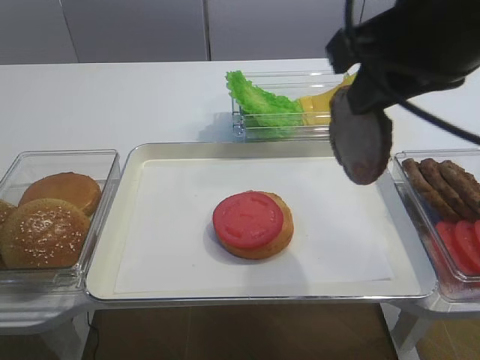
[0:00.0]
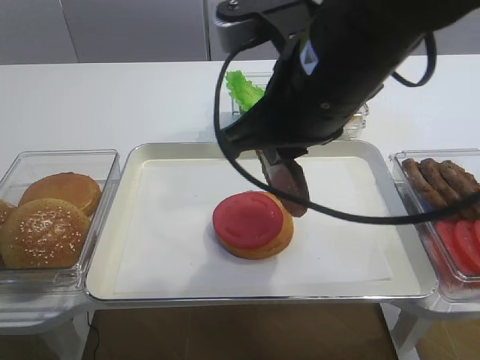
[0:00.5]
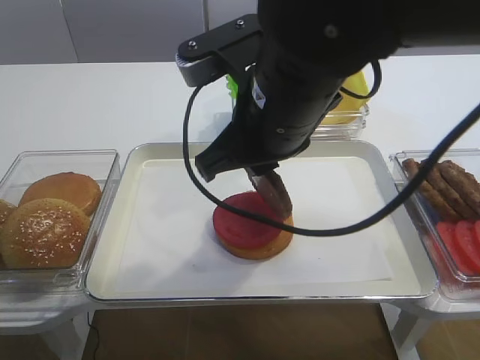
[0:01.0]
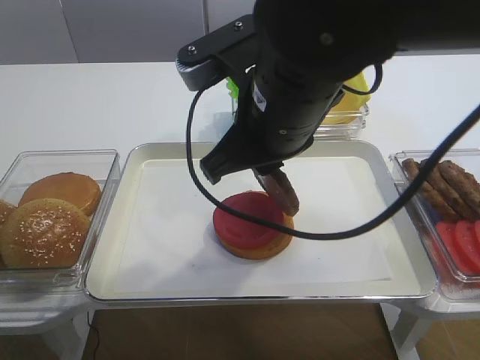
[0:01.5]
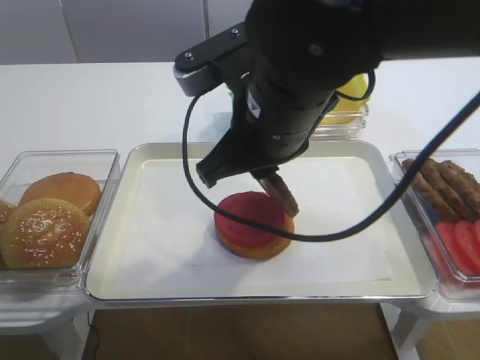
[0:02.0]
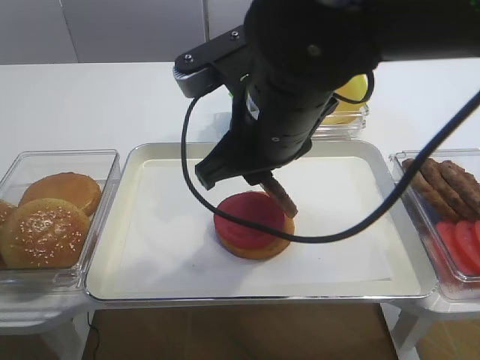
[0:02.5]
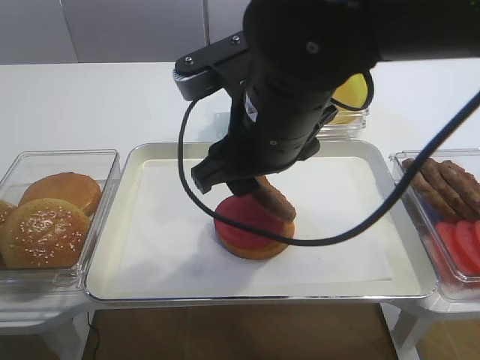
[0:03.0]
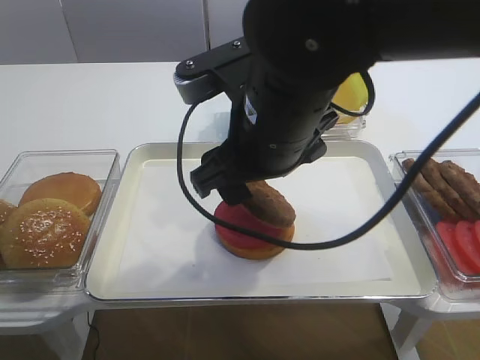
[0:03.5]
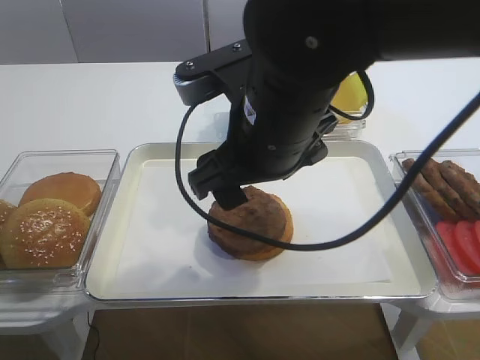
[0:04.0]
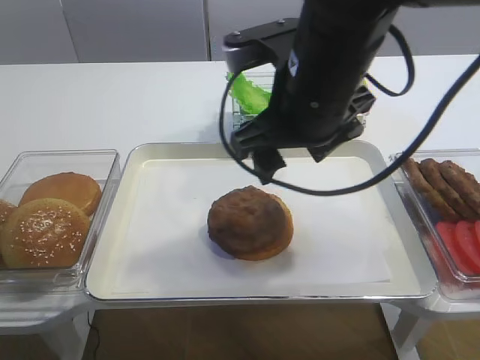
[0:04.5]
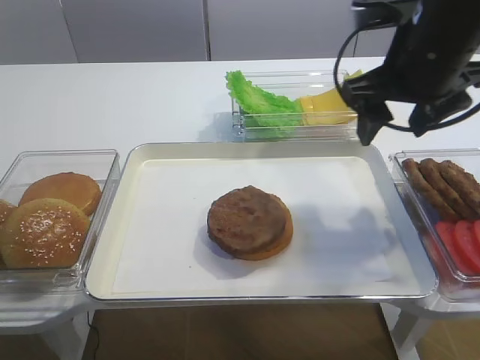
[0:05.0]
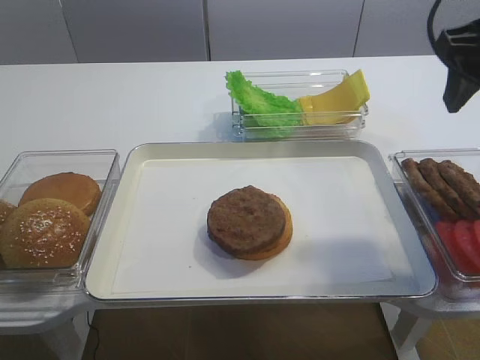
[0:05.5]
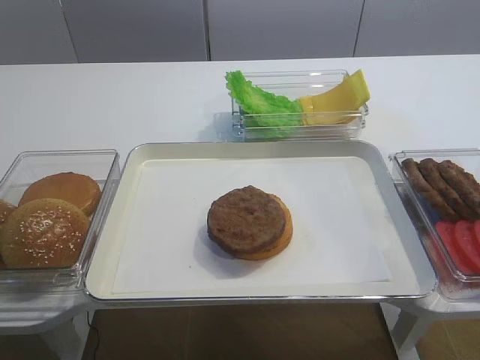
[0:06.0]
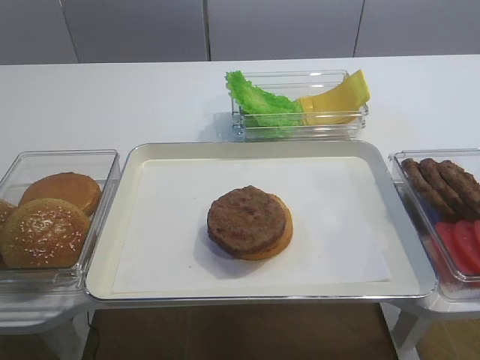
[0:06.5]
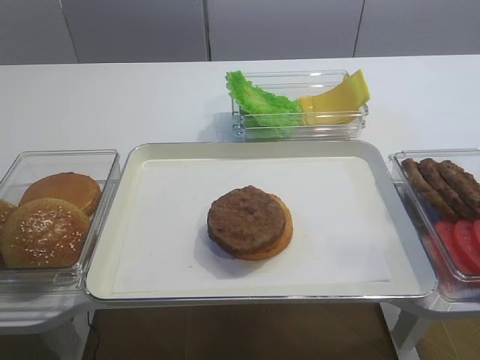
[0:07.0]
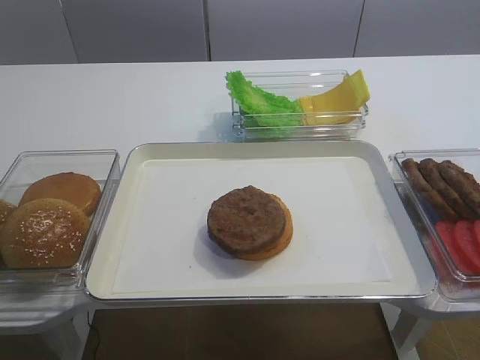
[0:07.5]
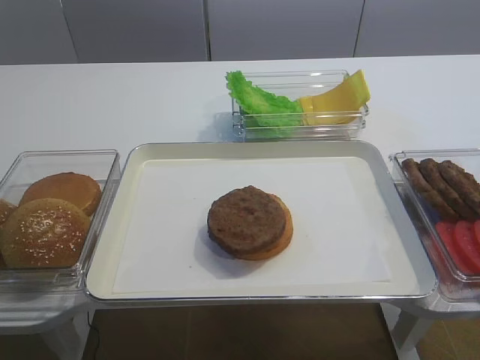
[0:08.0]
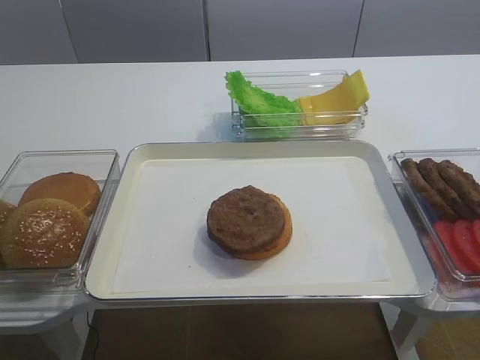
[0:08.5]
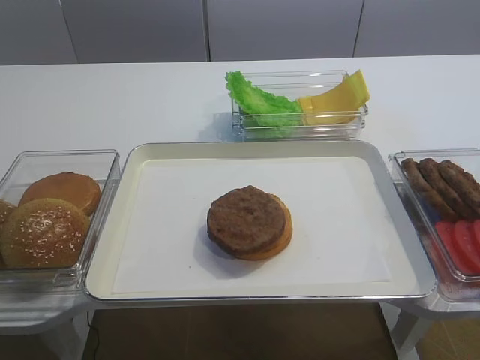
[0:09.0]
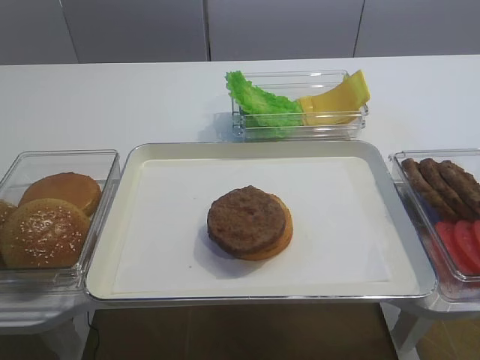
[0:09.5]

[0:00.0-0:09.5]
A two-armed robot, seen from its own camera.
Step, 0:00.0 to 0:04.0: Place the cutlet on the tomato slice with the right gripper.
0:00.0 to 0:02.0: The right gripper travels to the left and downward by some 15 cm.
0:02.0 to 0:04.0: The right gripper opens.
0:04.0 to 0:05.5: The right gripper heads to the right, covering about 20 cm.
0:05.5 to 0:07.5: The right gripper heads backward, covering roughly 30 cm.

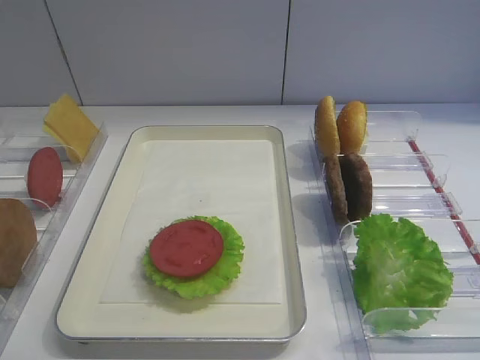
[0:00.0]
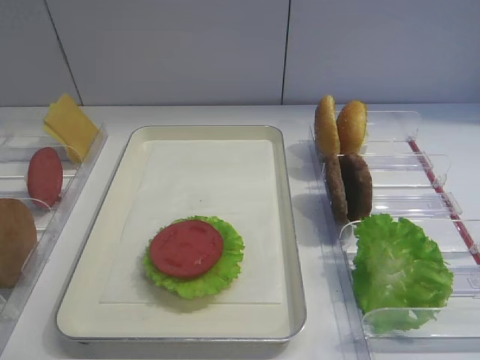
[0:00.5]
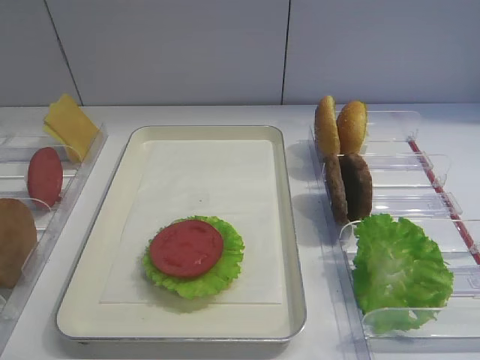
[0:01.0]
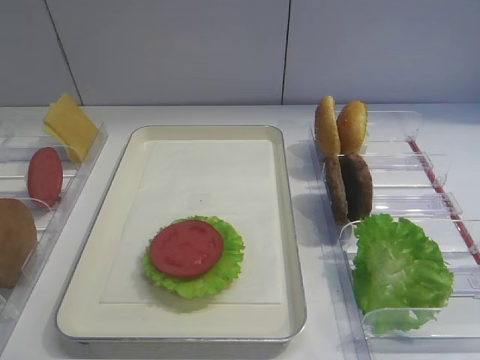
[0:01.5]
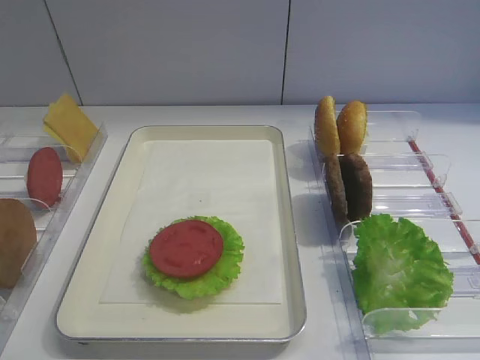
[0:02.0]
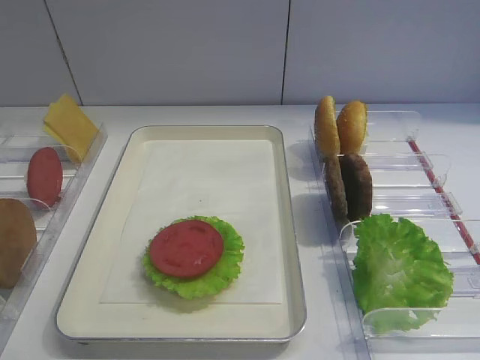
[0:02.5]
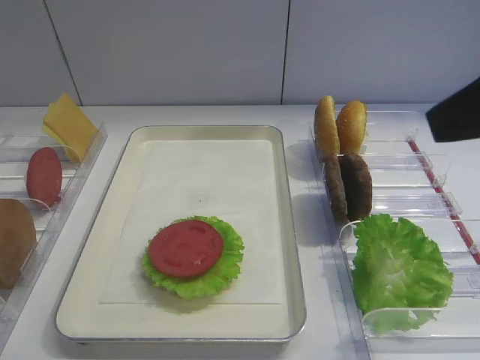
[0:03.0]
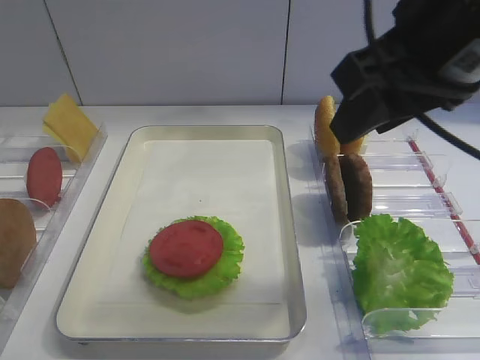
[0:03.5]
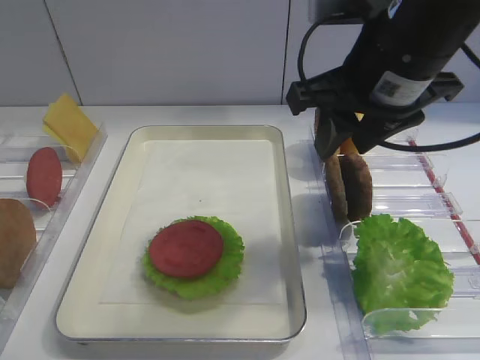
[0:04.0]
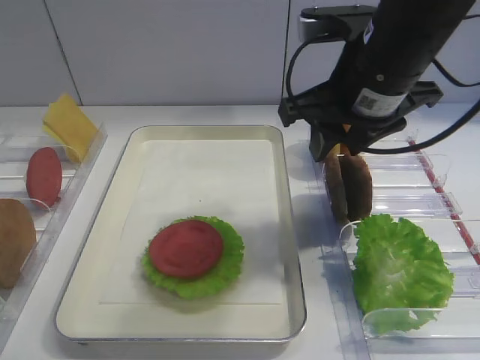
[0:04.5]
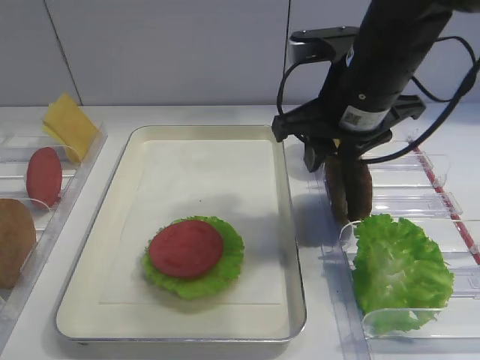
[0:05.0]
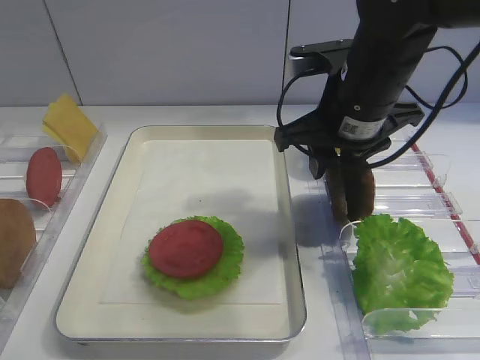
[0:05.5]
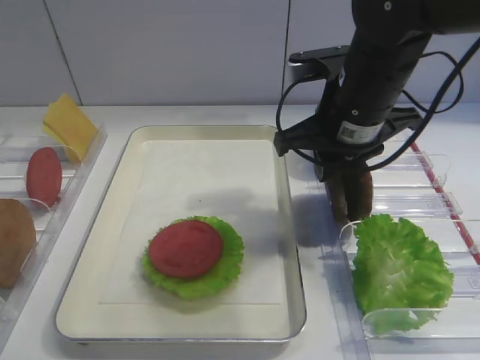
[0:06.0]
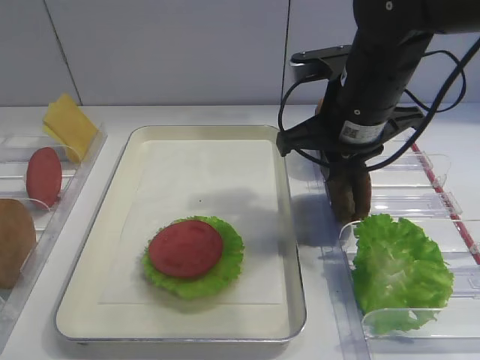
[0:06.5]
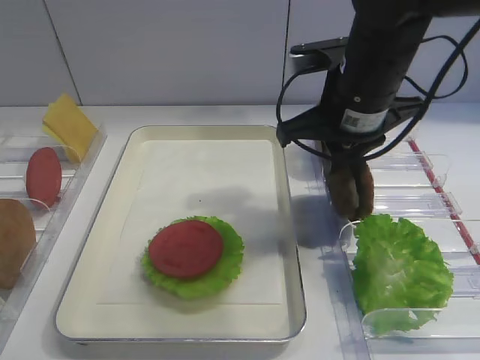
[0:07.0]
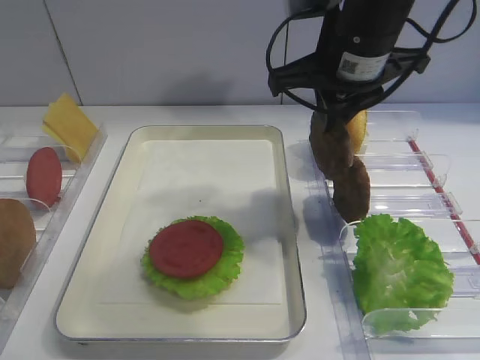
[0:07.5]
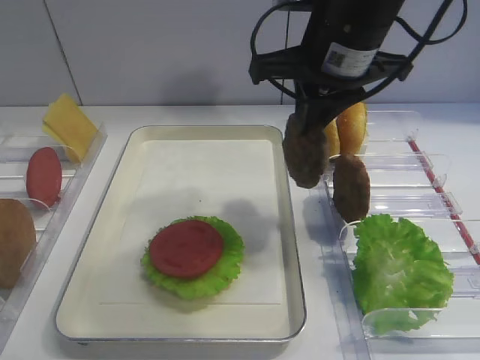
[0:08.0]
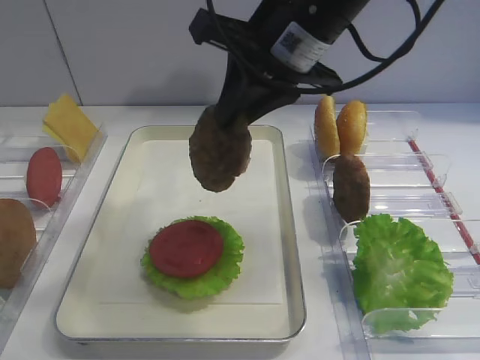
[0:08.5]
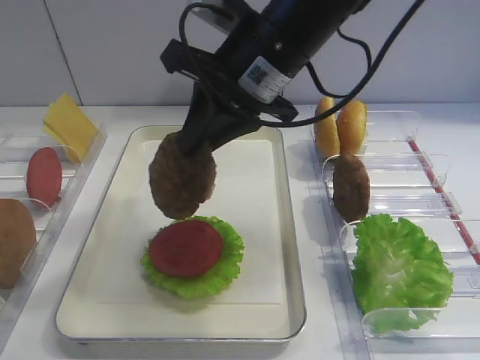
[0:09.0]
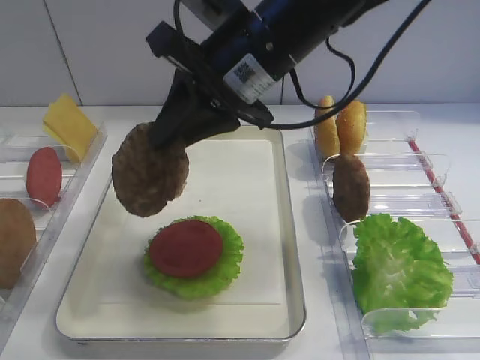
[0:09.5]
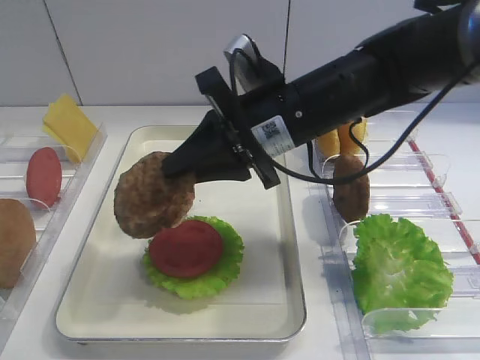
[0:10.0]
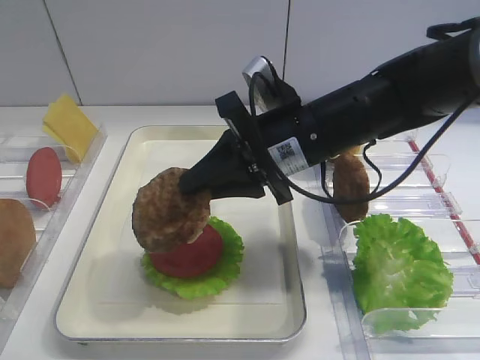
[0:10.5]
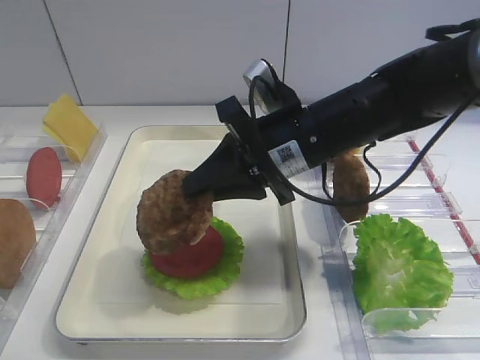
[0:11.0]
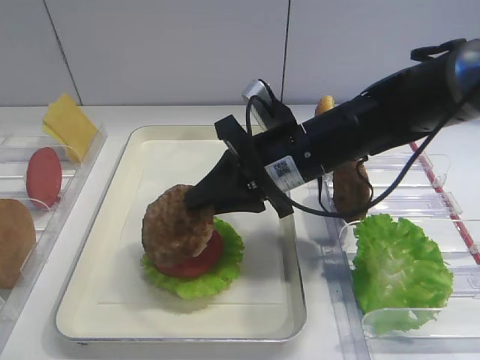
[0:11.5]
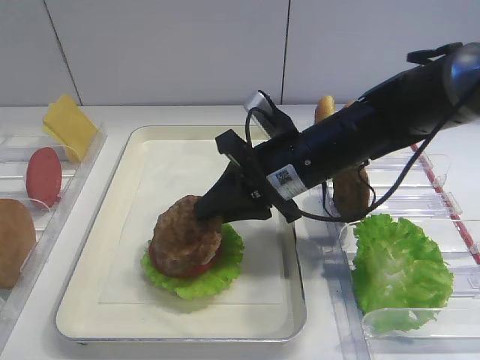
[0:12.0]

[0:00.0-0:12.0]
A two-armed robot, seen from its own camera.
Step, 0:00.0 to 0:07.0: Pick up the cutlet with the right gripper.
0:02.0 to 0:04.0: The right gripper is displaced forward and to the left by some 30 cm.
0:04.0 to 0:06.0: The right gripper moves downward, about 5 cm.
0:06.0 to 0:08.0: The right gripper travels upward by about 5 cm.
0:08.0 to 0:10.0: The right gripper travels downward by roughly 5 cm.
0:10.0 to 0:12.0: The right gripper is displaced downward by some 5 cm.

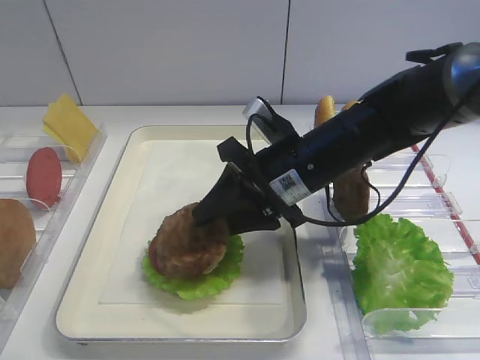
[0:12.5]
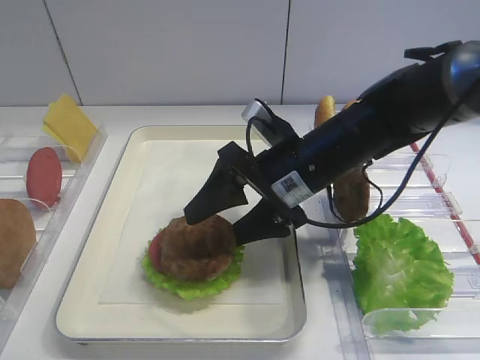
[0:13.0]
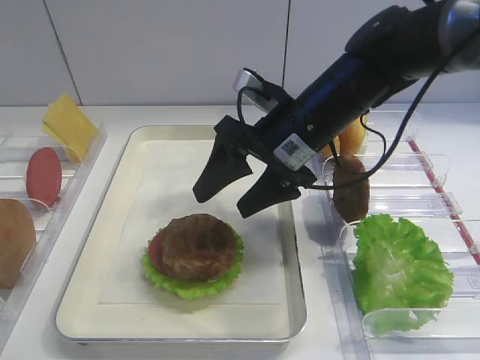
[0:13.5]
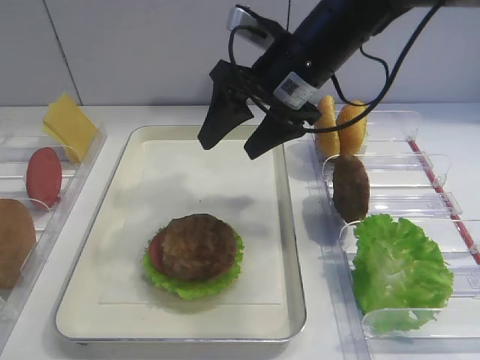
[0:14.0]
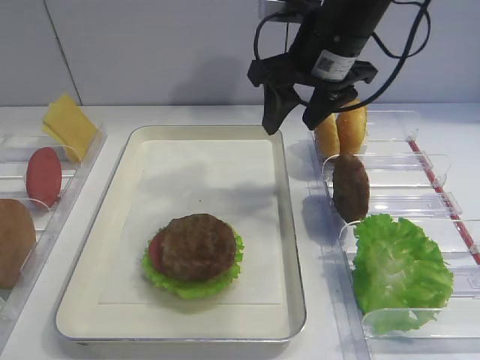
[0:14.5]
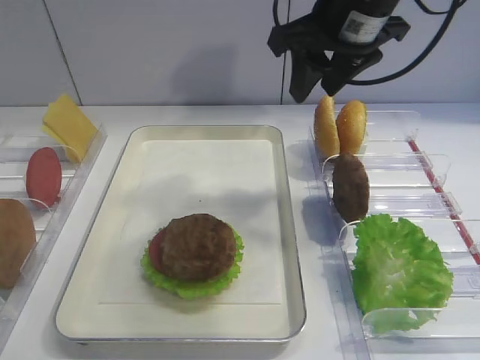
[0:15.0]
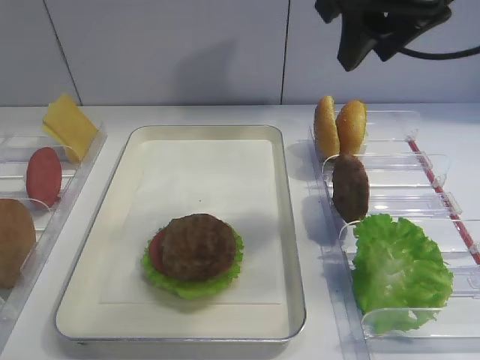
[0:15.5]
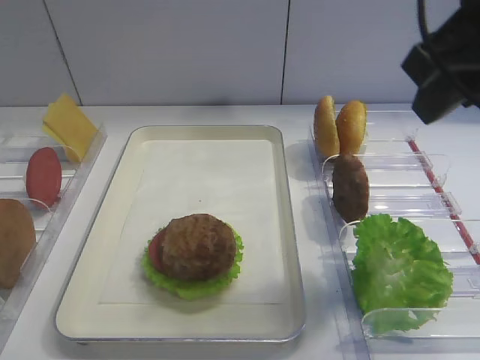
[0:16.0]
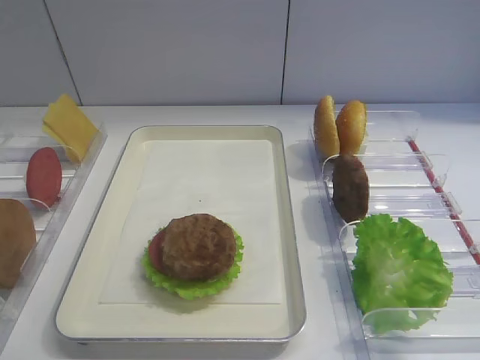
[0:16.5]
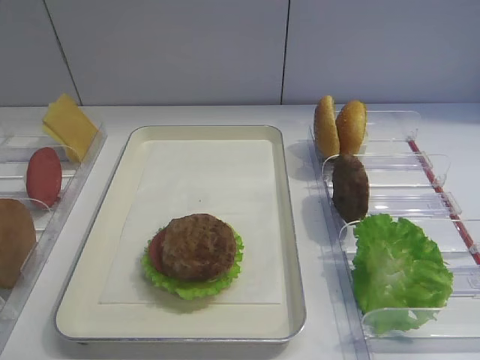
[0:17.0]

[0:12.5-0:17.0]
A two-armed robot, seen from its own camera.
0:12.5 to 0:14.5: The right gripper travels upward and forward by approximately 15 cm, and opens.
0:14.5 to 0:17.0: The right gripper moves backward and to the right, roughly 35 cm.
